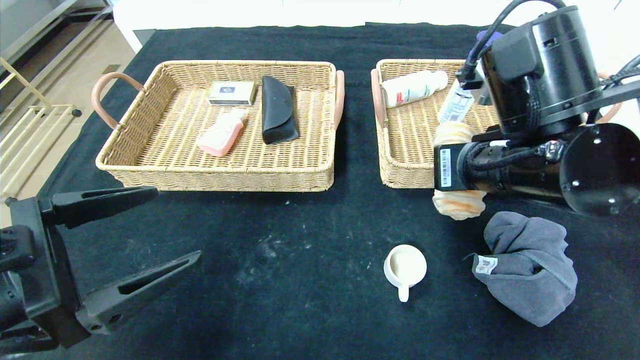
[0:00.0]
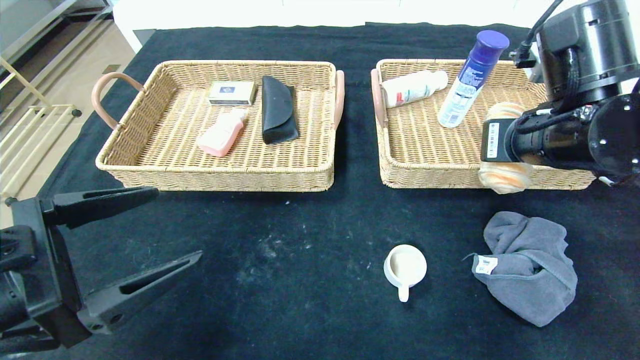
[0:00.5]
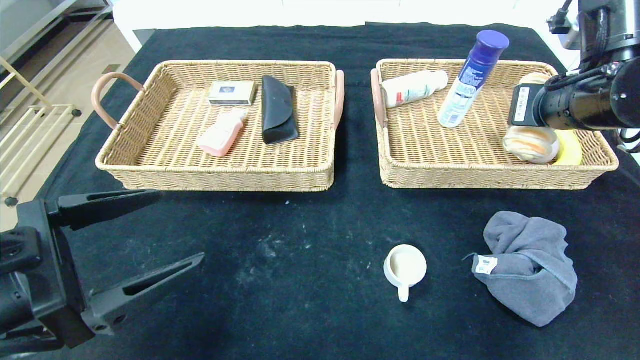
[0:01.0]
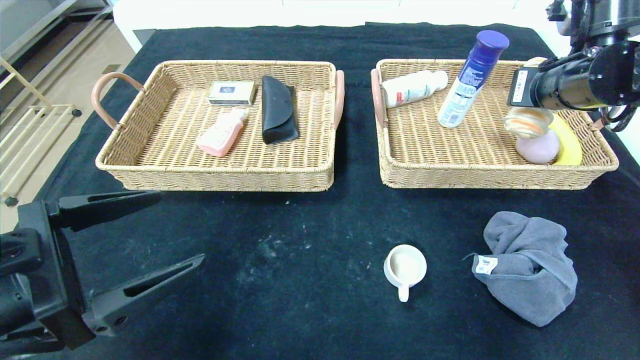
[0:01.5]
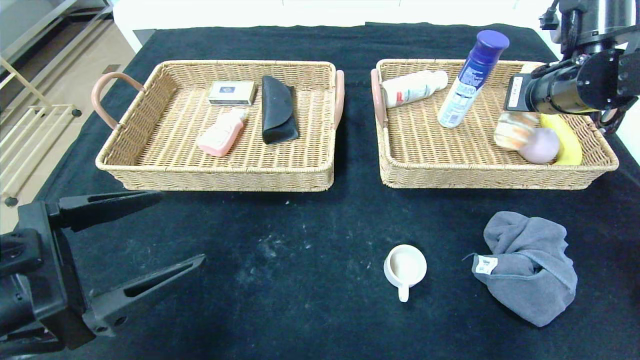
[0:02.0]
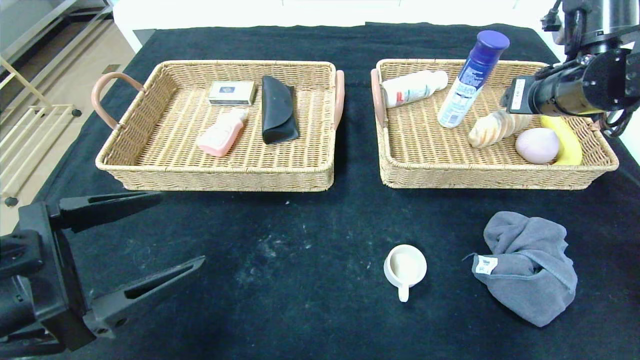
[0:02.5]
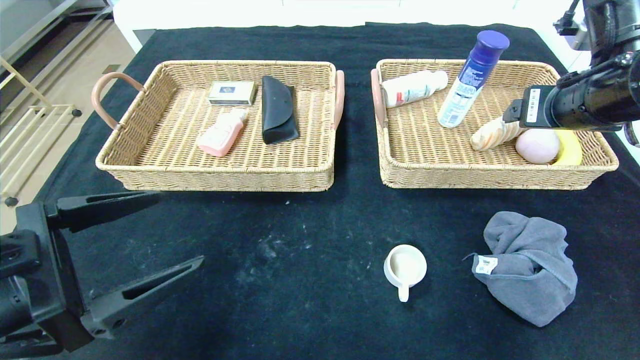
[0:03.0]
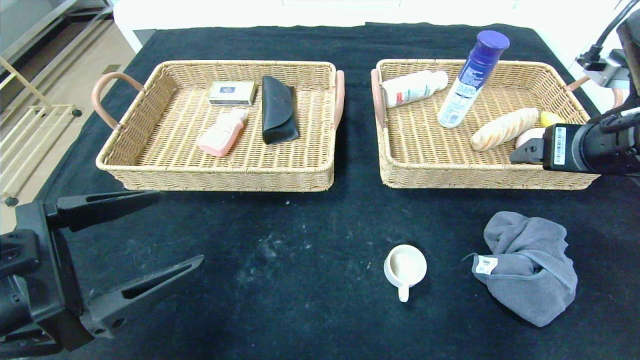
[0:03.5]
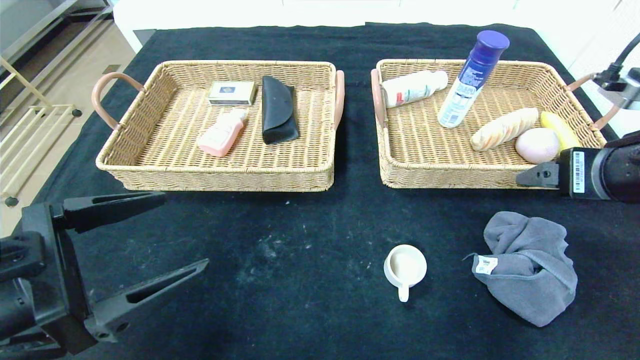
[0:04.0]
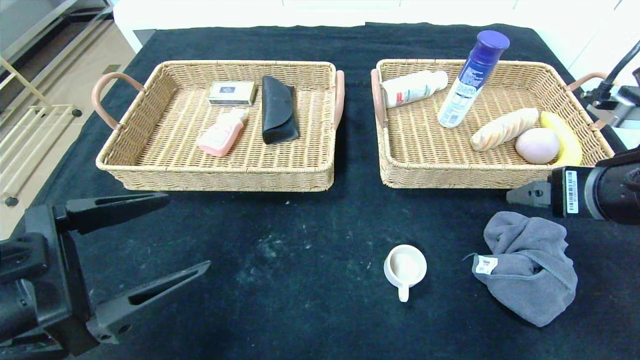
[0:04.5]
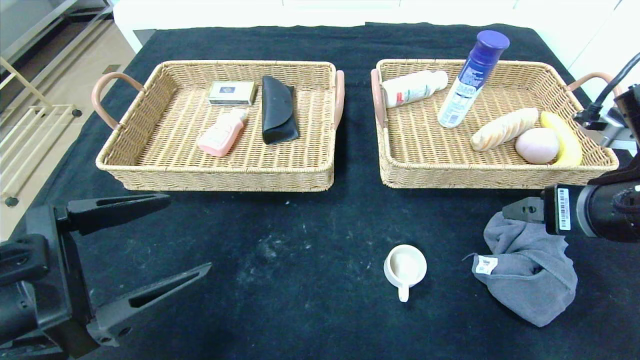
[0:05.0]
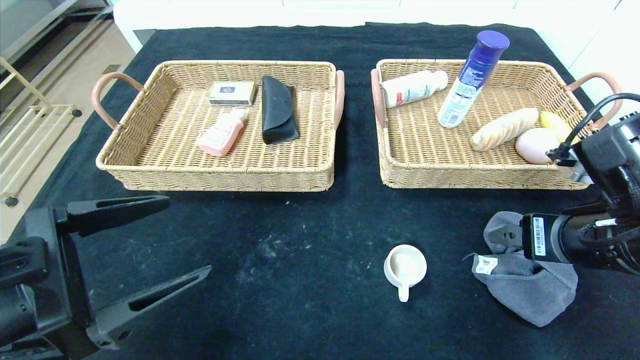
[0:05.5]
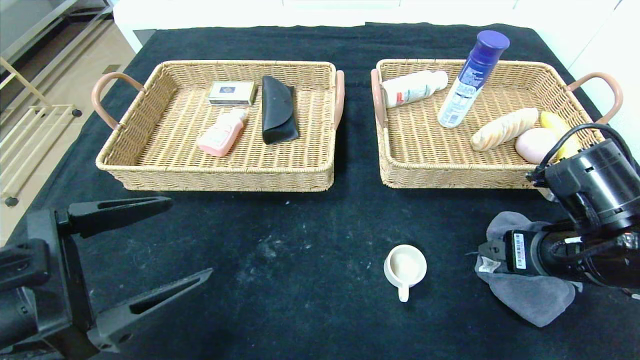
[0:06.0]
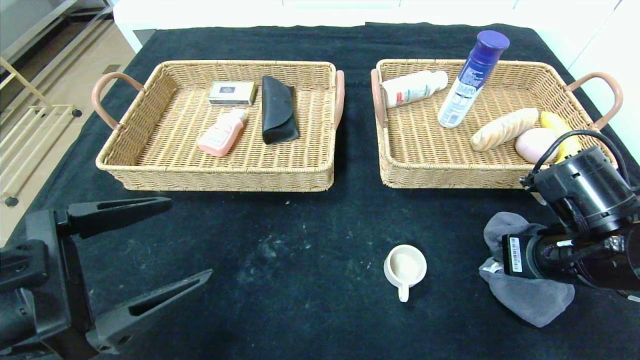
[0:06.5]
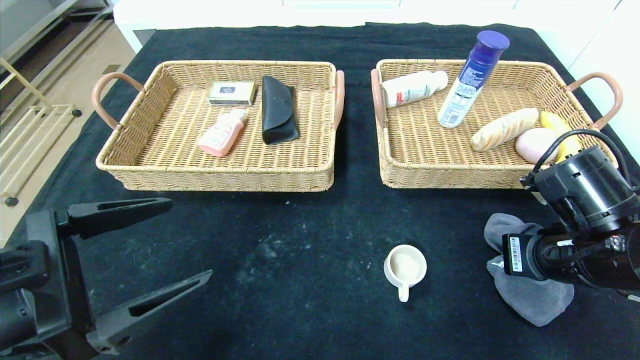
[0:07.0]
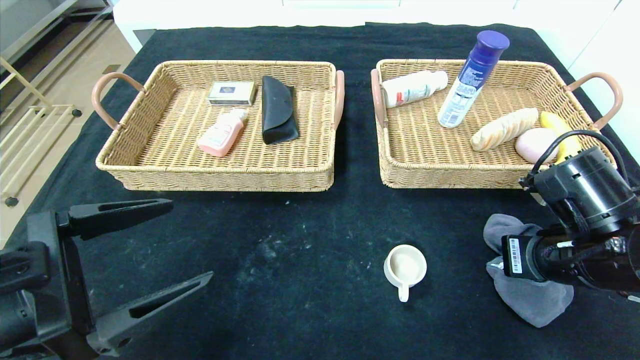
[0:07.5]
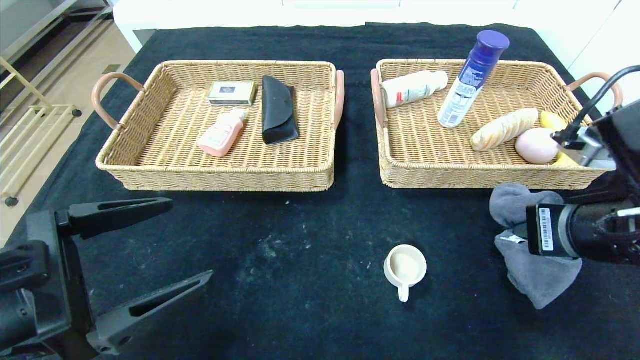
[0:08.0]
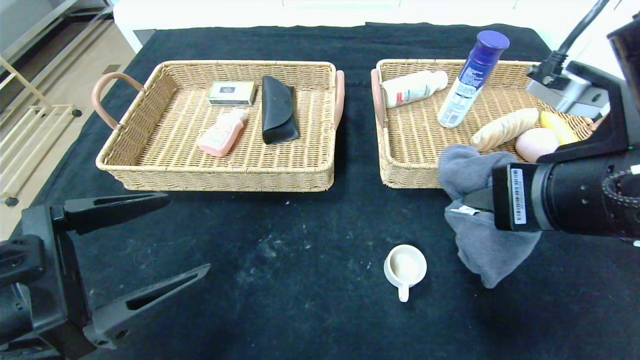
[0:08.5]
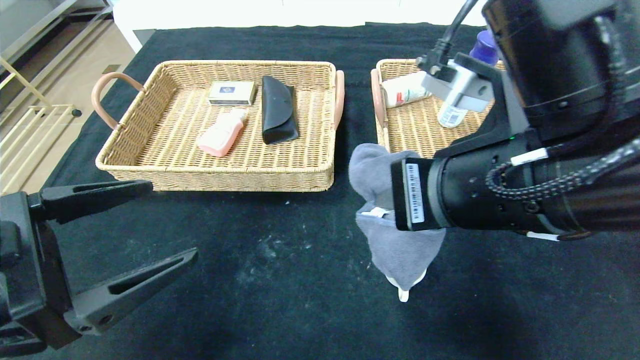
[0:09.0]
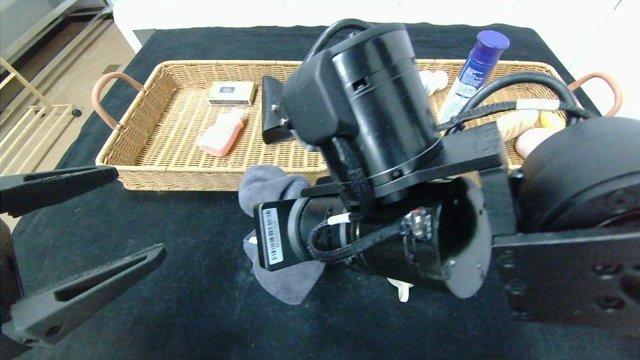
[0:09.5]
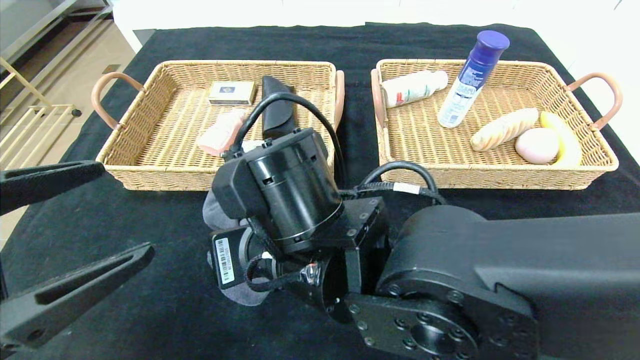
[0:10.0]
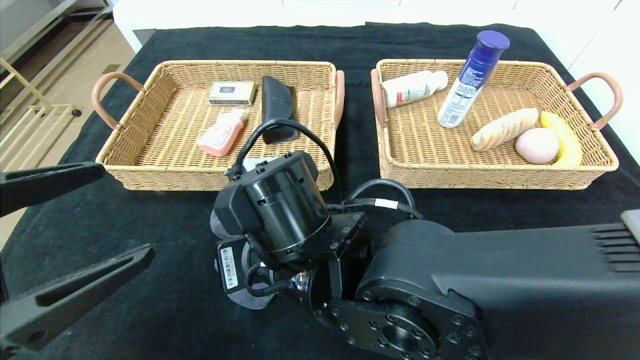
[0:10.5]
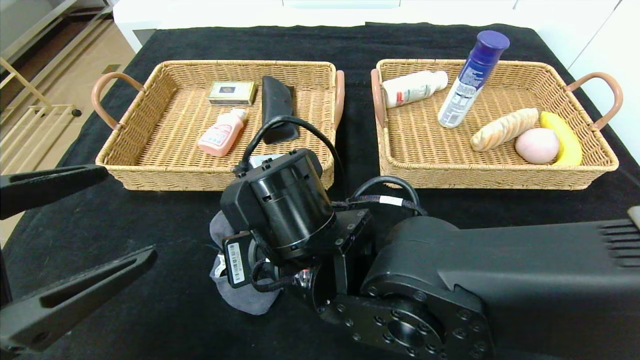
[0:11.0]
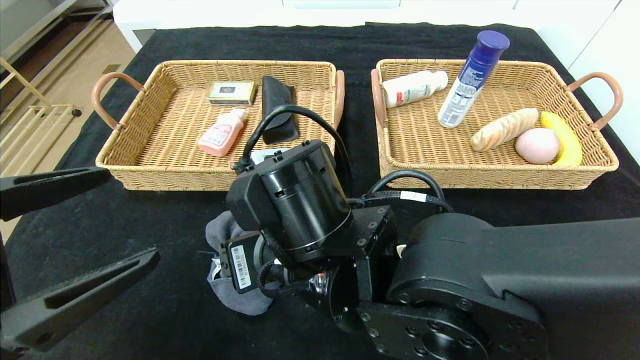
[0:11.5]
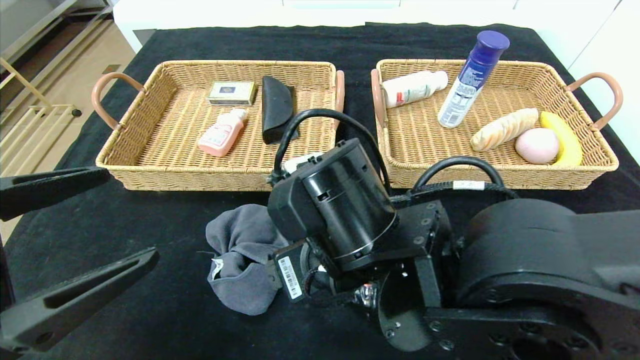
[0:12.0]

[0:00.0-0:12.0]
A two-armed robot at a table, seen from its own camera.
Step, 0:00.0 to 0:02.5: Grasp the long bread and put it in the right basket.
Step, 0:03.0 to 0:11.0: Place the gray towel in the center of the table.
0:00.0 to 0:02.0: The right gripper is displaced to the right and forward by approximately 15 cm, and opens up.
0:02.0 to 0:04.0: The right gripper shifts about 15 cm backward, and opens.
0:04.0 to 0:06.0: The right gripper heads downward, covering roughly 10 cm.
0:06.0 to 0:08.0: The right gripper shifts some 5 cm upward, and closes up.
0:08.0 to 0:10.0: The right gripper shifts roughly 25 cm to the left.
0:10.0 to 0:12.0: The right gripper shifts some 5 cm to the right, and opens.

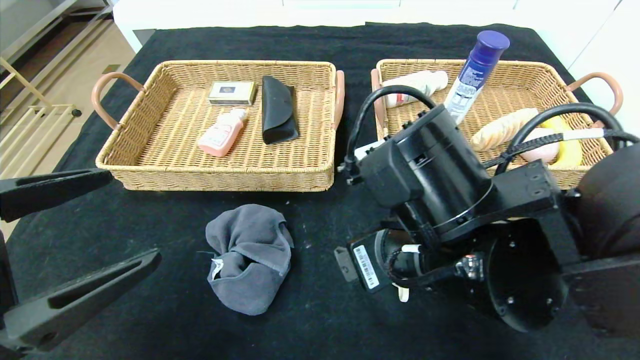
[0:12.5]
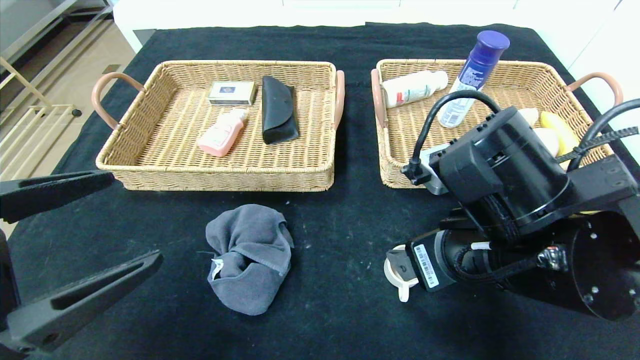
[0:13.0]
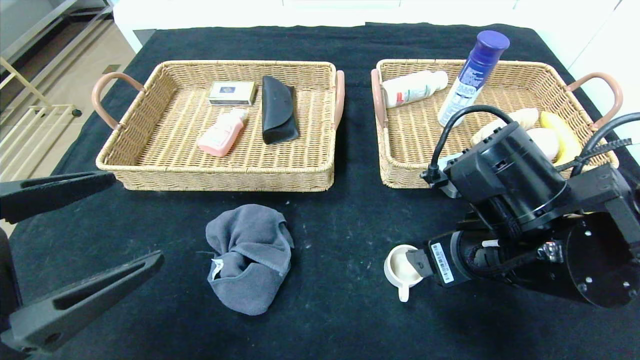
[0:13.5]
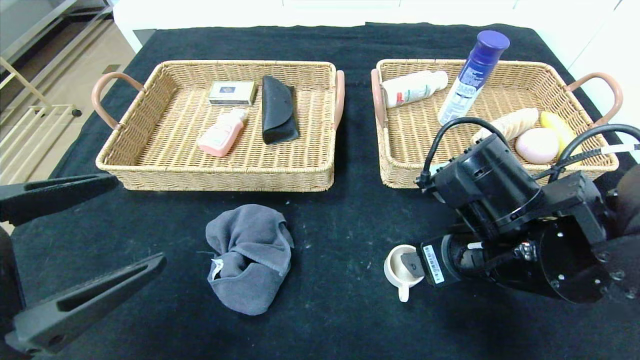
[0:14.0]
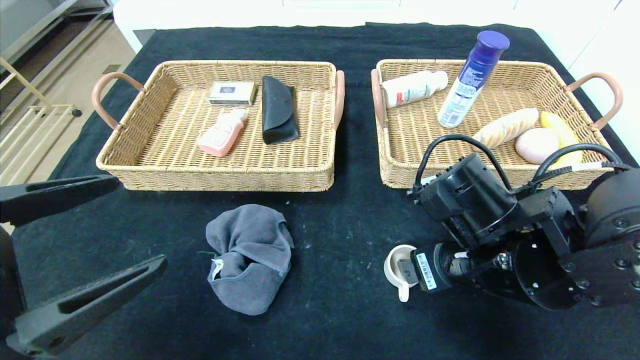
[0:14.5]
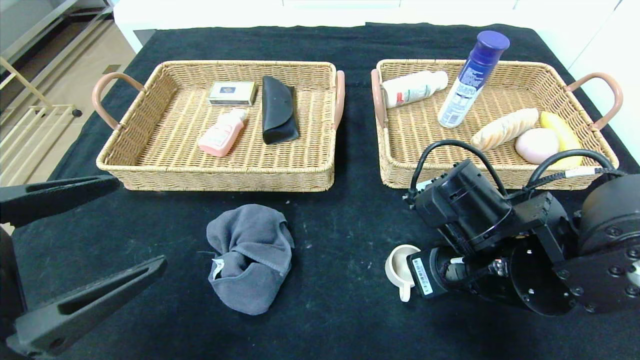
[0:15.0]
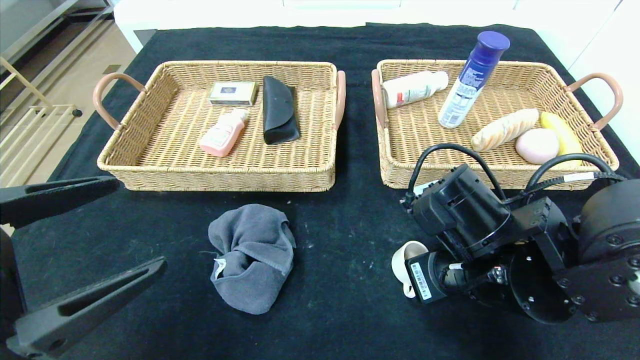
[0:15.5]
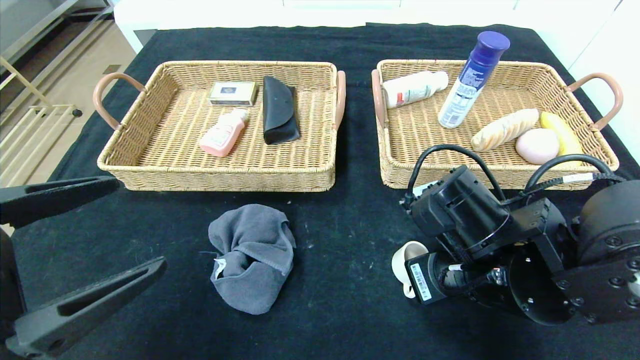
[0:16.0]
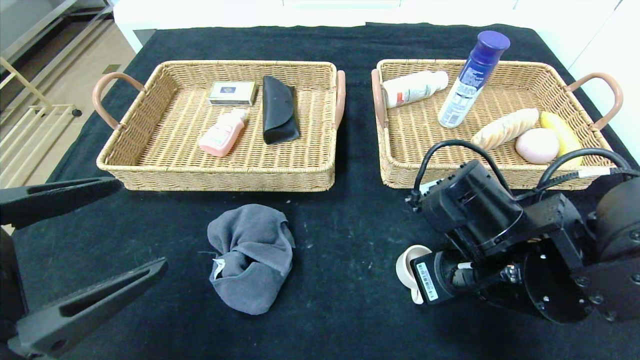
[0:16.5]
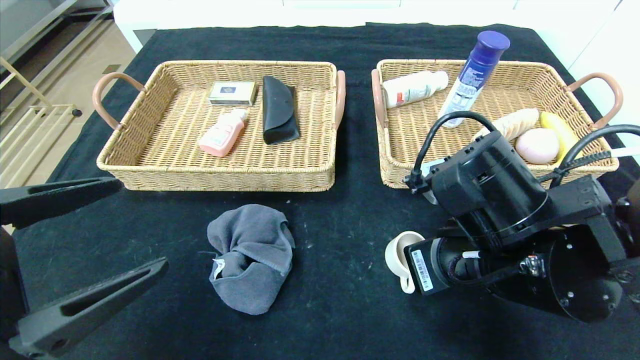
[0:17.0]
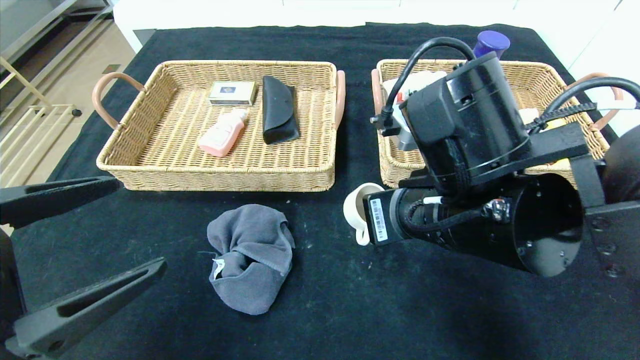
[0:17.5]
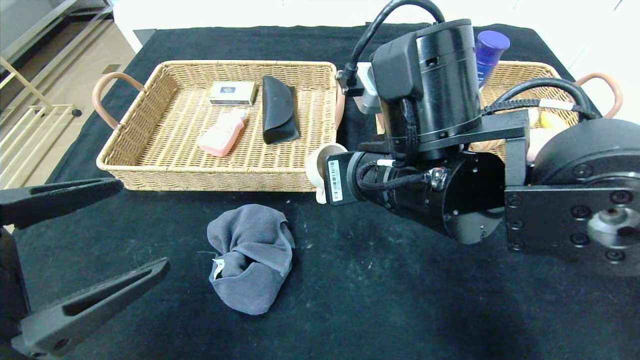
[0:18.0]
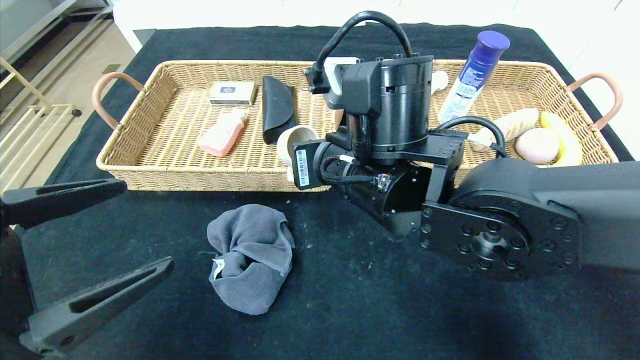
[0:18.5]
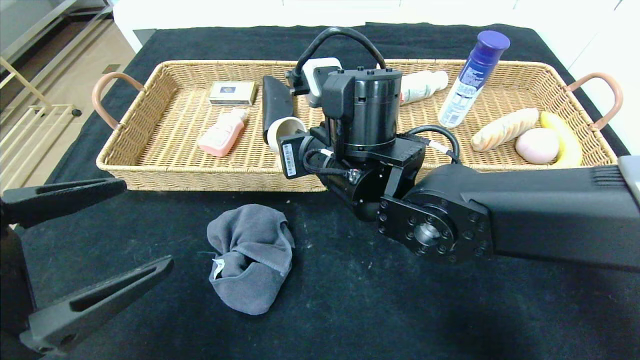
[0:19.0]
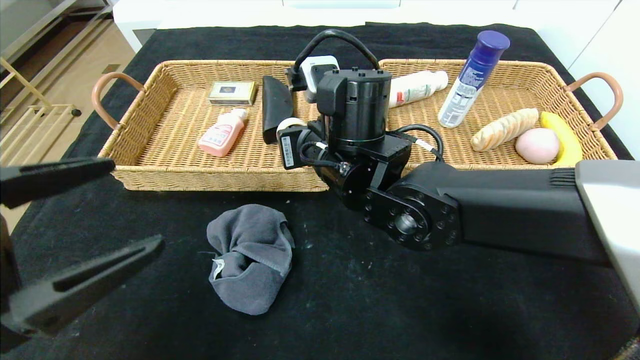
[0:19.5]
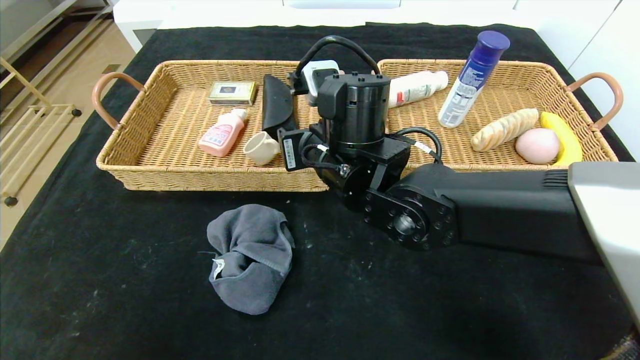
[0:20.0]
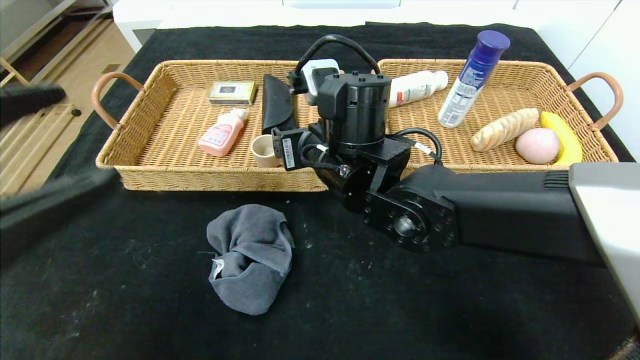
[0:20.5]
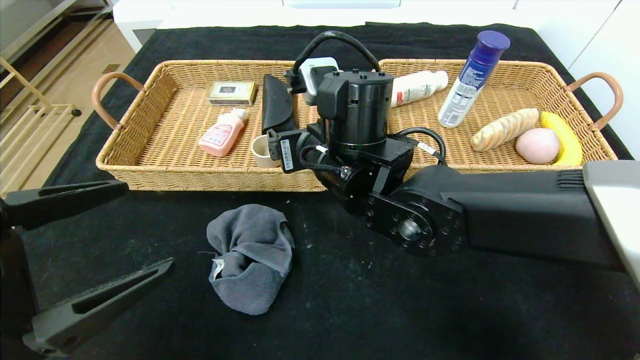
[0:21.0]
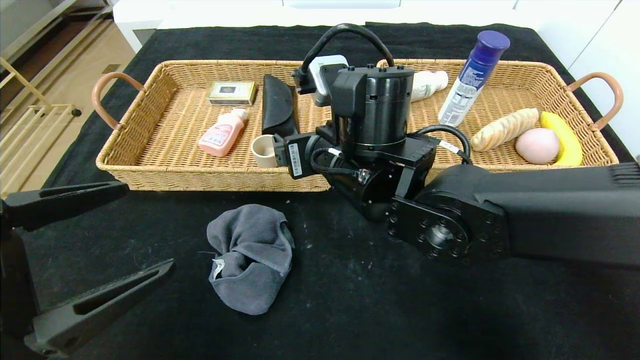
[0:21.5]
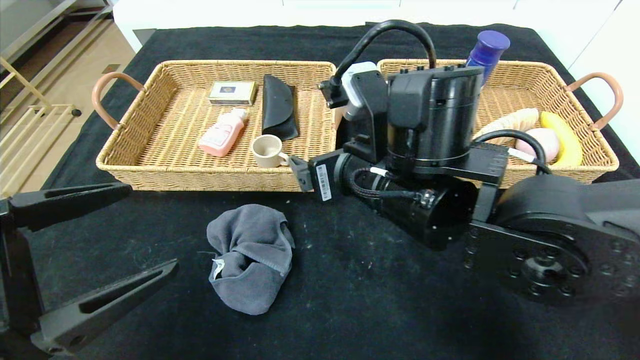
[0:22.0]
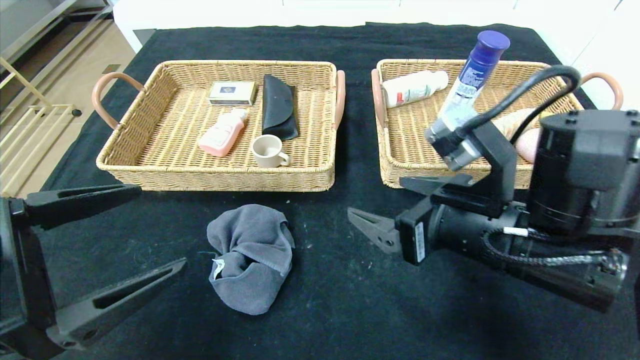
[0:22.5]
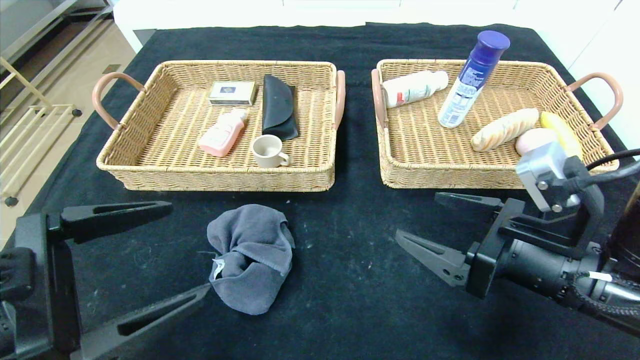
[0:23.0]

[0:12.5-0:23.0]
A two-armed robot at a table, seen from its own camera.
0:12.5 to 0:14.5: The right gripper heads to the right, covering approximately 5 cm.
0:14.5 to 0:16.5: The right gripper closes.
0:16.5 to 0:19.0: The right gripper shifts about 15 cm to the left, forward and upward.
0:19.0 to 0:21.0: The left gripper moves some 20 cm upward and comes back. The right gripper opens its fingers.
0:21.0 to 0:23.0: The right gripper heads to the right and backward, covering approximately 25 cm.
